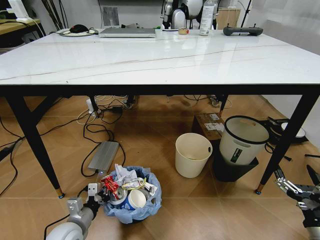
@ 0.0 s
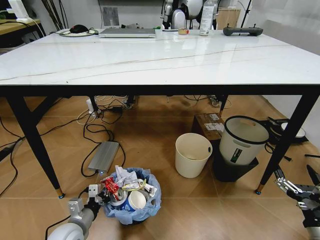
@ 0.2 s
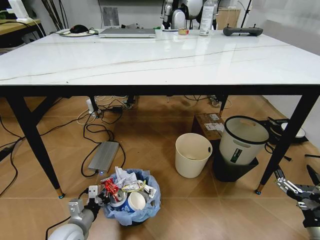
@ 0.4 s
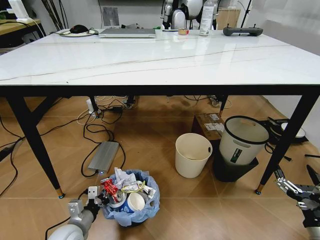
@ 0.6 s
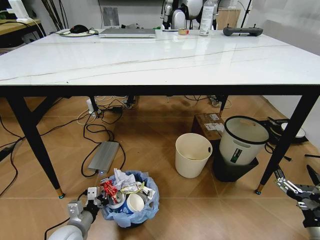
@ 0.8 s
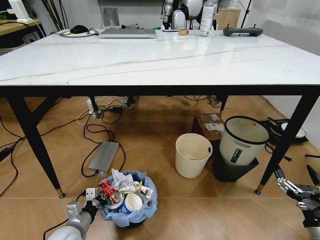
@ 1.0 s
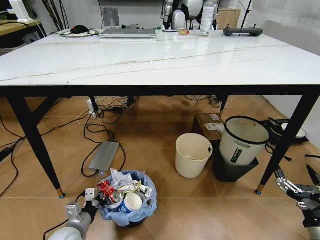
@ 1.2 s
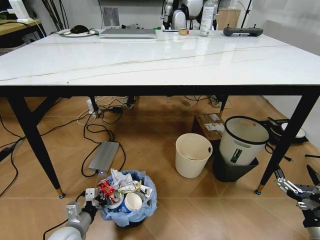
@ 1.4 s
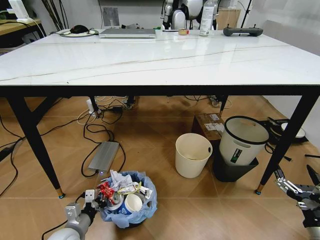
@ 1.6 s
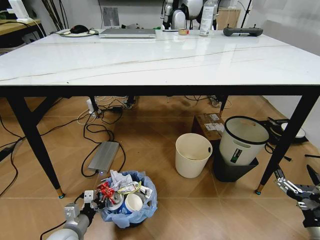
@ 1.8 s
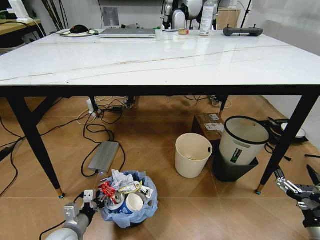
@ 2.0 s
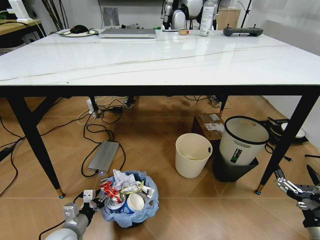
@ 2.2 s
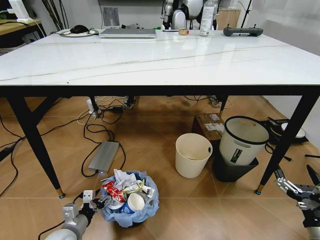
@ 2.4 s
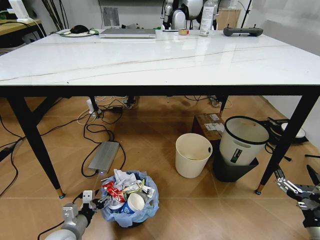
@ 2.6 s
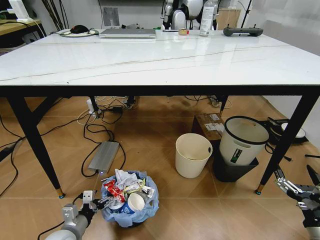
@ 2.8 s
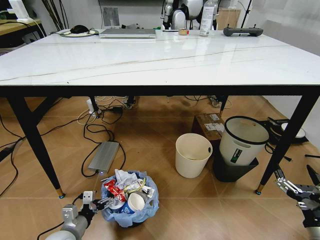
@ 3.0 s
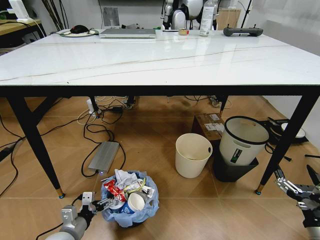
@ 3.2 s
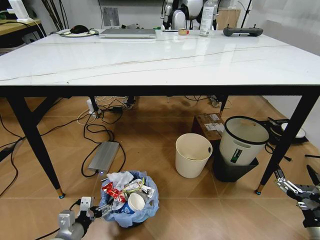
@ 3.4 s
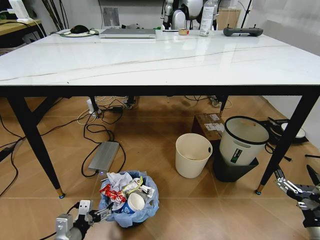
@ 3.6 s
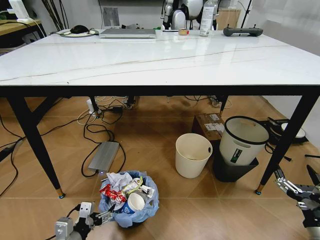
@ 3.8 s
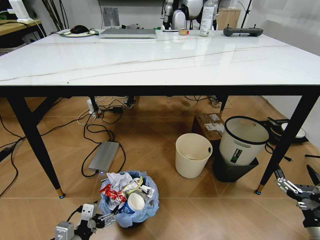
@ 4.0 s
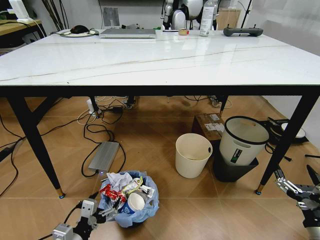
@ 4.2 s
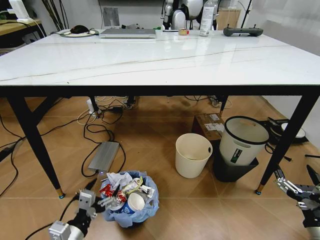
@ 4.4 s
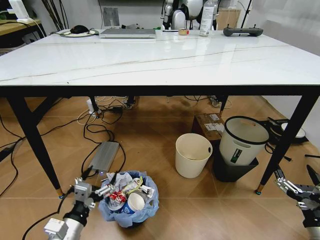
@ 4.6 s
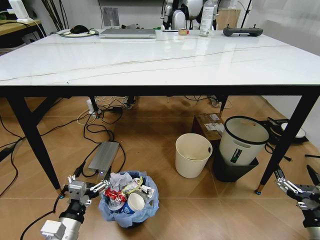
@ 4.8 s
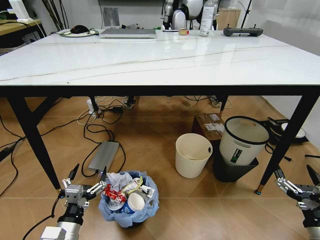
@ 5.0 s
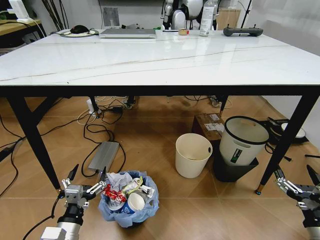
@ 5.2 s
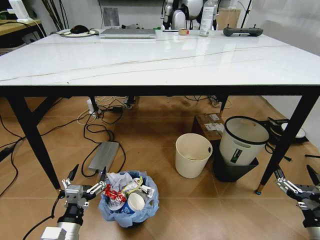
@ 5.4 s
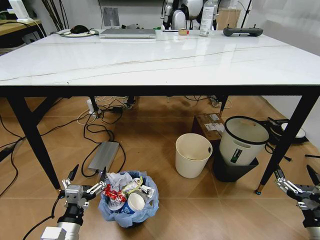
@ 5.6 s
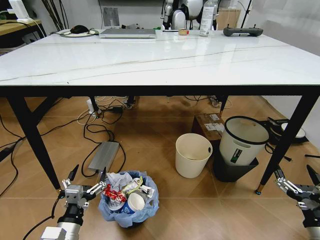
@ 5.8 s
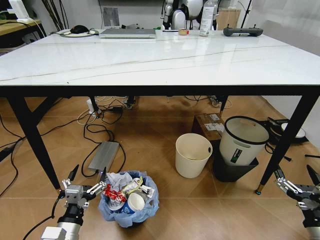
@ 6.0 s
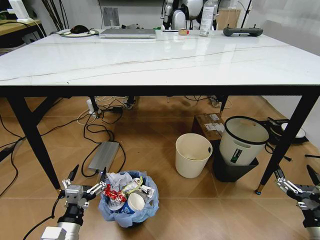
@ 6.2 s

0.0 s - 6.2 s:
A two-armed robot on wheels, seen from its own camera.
Task of the whole recording: Pick up the trash bin and place the trash from the table into it.
0.0 s - 1.6 s: The grippers stay close to where they were, moving slightly.
1.6 s - 3.2 s: The left gripper opens.
3.2 s - 4.6 s: The left gripper goes some 10 cm upward.
4.6 s - 6.2 s: There are only small adjustments of the grippers.
